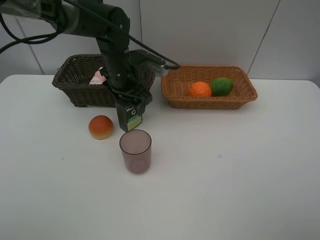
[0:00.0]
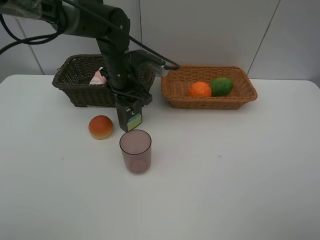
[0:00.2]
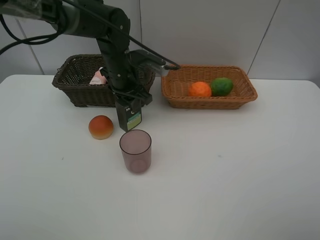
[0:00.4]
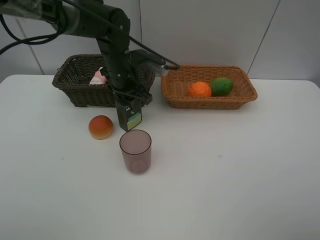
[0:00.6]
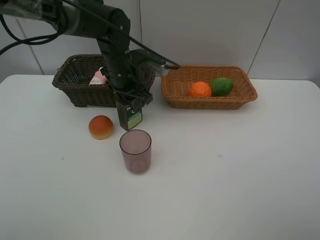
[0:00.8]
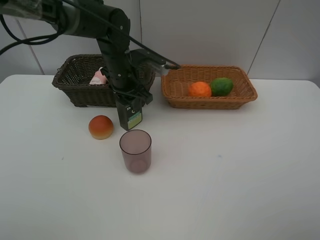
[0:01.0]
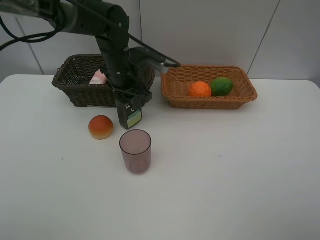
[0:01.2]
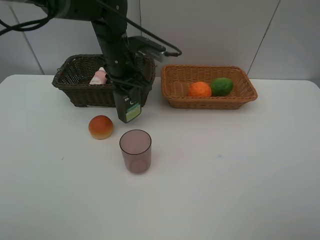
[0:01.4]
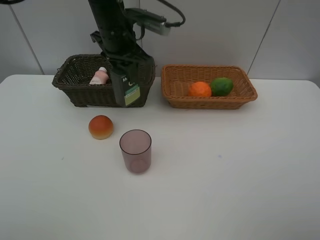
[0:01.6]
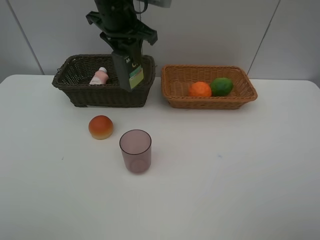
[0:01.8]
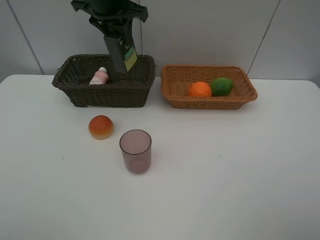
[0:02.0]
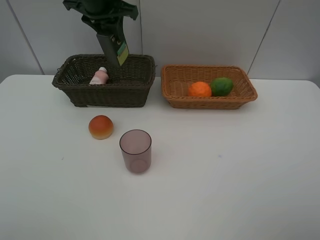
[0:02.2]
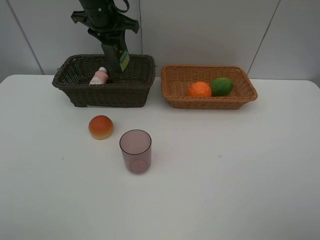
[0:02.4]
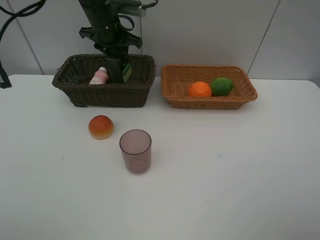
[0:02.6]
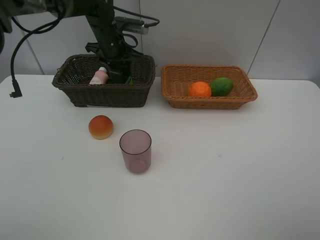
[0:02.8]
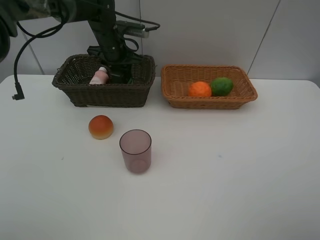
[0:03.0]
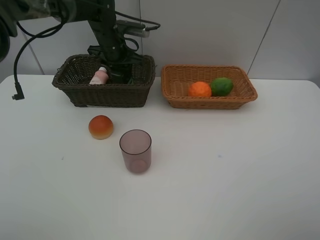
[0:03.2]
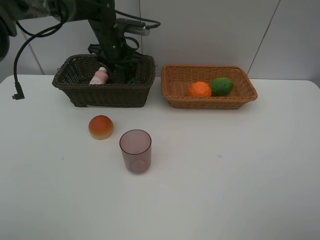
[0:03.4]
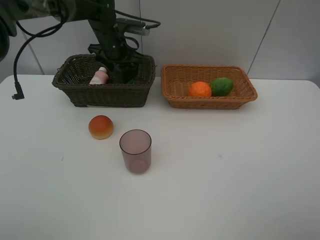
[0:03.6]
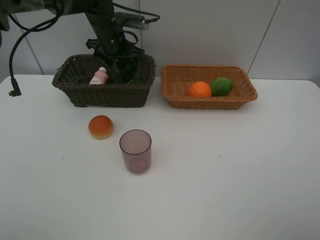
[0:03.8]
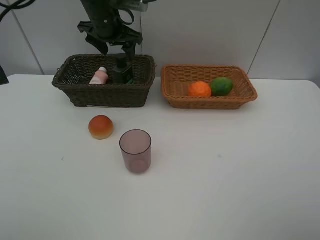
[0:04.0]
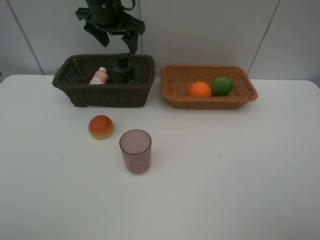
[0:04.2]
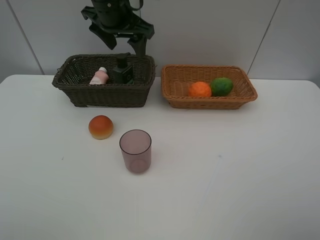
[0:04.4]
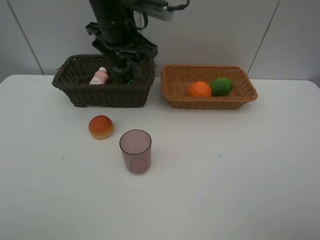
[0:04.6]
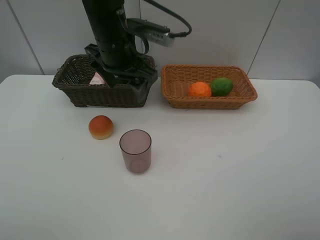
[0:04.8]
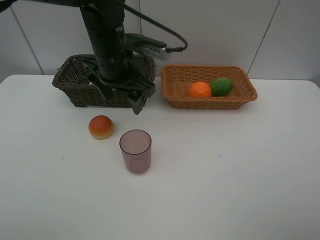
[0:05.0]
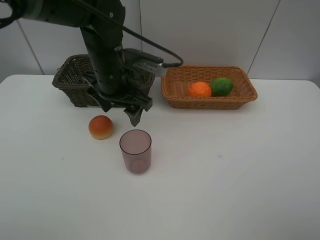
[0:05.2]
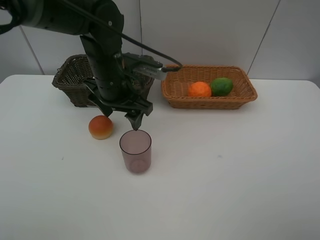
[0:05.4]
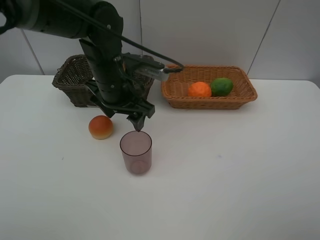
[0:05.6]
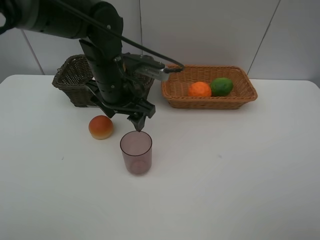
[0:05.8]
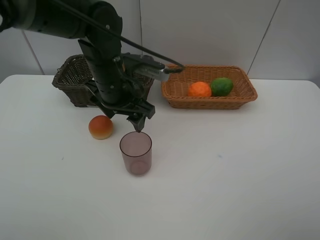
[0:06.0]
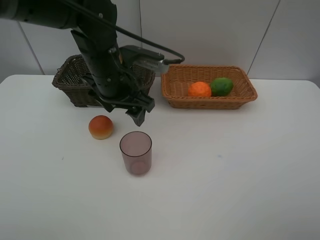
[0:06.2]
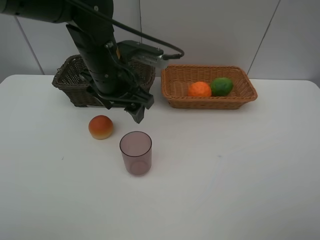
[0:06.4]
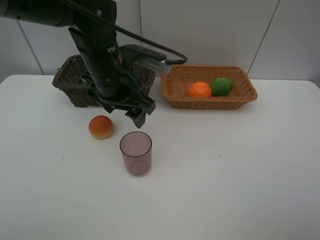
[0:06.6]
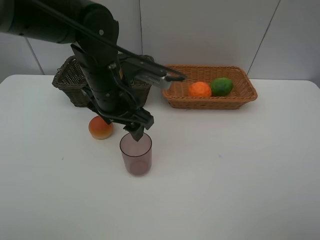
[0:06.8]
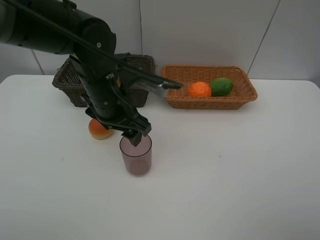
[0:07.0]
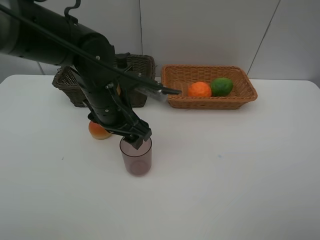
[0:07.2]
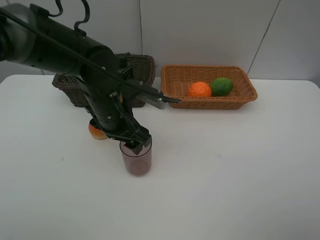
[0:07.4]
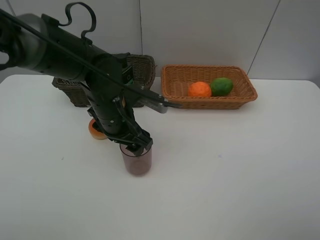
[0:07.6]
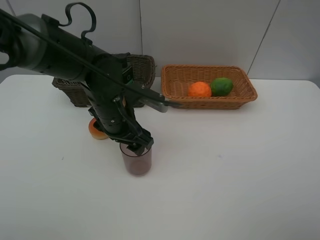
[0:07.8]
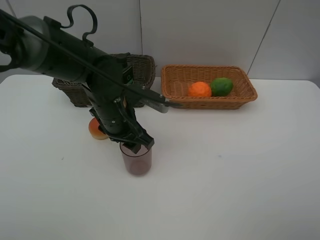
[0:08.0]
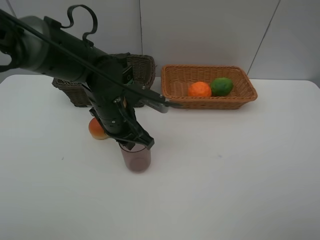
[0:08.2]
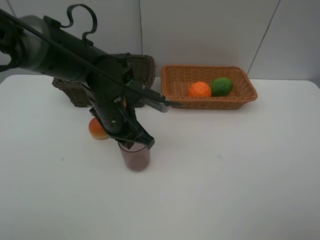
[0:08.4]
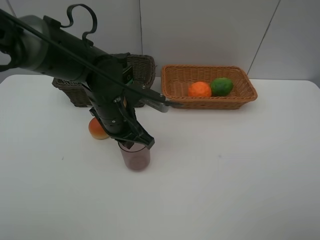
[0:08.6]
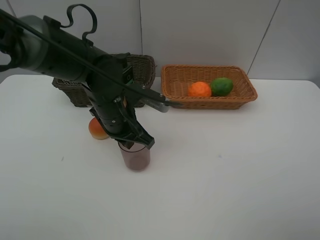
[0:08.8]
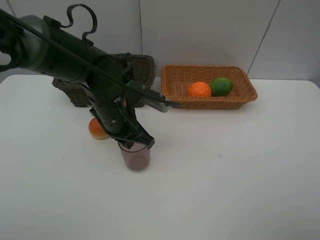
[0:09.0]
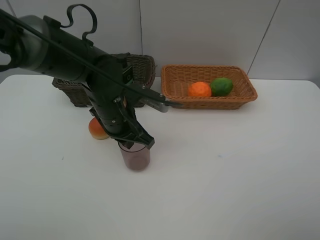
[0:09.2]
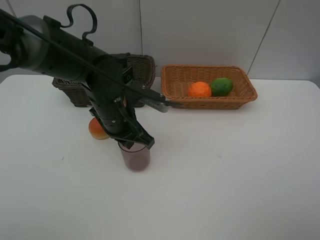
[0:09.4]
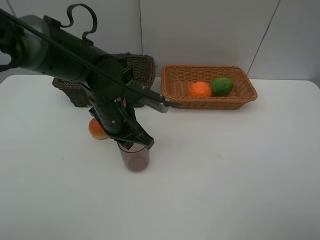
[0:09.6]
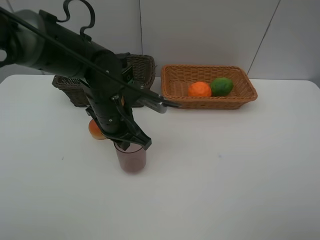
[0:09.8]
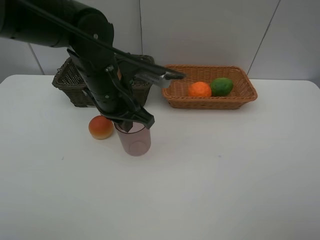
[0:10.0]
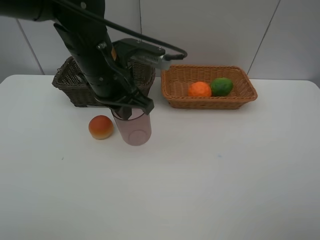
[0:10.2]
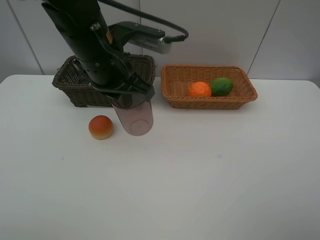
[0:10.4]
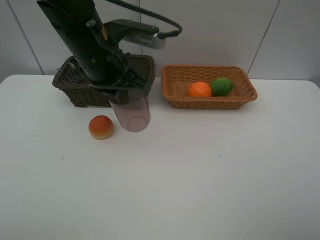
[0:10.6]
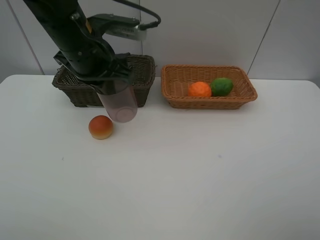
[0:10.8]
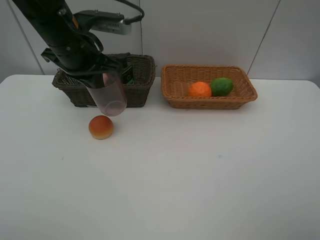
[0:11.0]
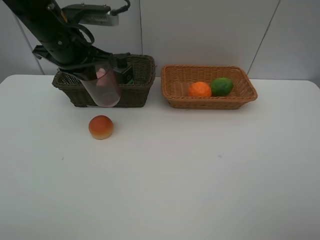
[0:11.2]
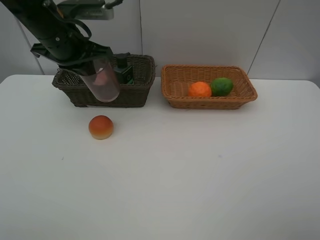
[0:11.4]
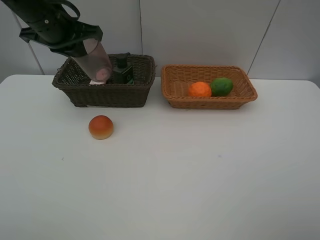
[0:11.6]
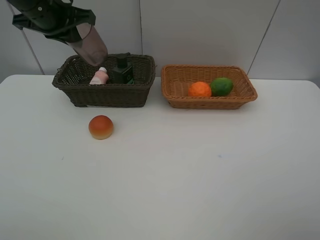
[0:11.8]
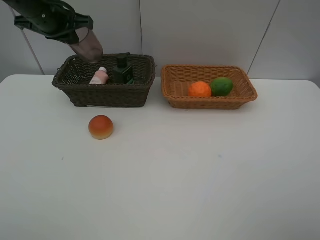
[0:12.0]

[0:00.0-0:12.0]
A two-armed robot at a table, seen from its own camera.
Task of the whole recording: place multiple objects separately in different baskets.
0:00.0 to 0:01.6: The left gripper travels upward by roughly 10 cm, and closes its fingers.
0:01.6 to 0:03.0: The left gripper heads forward and downward, covering some 10 cm.
0:03.0 to 0:04.4: The left gripper heads upward and backward, covering roughly 15 cm, and opens.
0:04.4 to 0:06.0: The left gripper shifts some 15 cm downward and backward.
0:06.0 to 0:07.6: The left gripper shifts about 5 cm downward.
0:07.6 to 0:09.0: The left gripper closes its fingers.
0:09.0 to 0:10.4: The left gripper is displaced upward by some 10 cm.
0:10.4 to 0:12.0: The left gripper travels to the left and forward by some 20 cm.

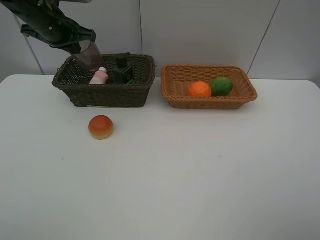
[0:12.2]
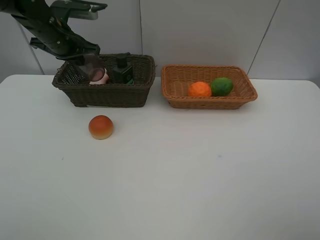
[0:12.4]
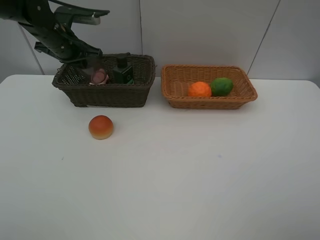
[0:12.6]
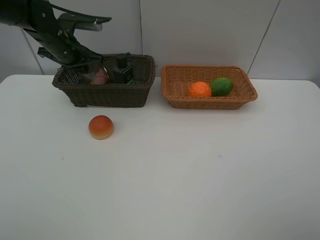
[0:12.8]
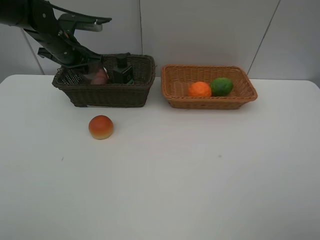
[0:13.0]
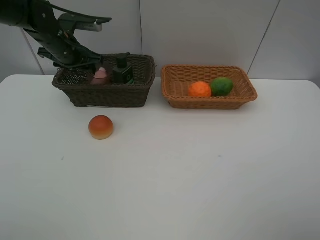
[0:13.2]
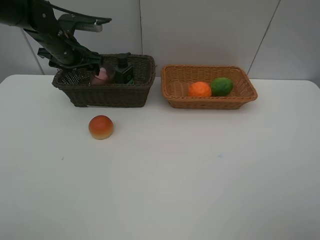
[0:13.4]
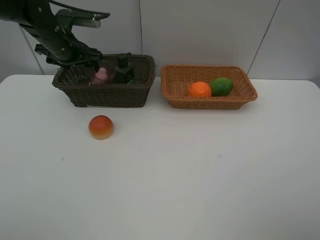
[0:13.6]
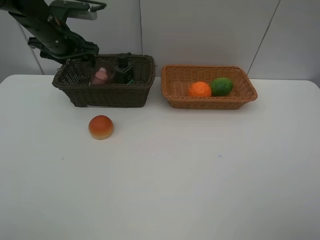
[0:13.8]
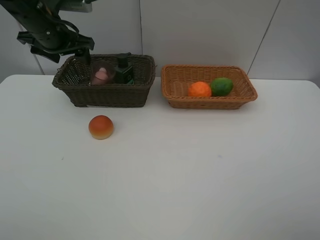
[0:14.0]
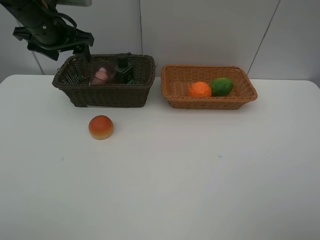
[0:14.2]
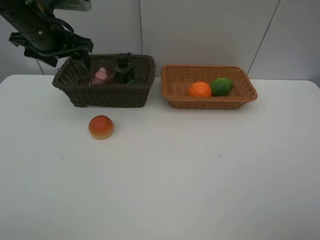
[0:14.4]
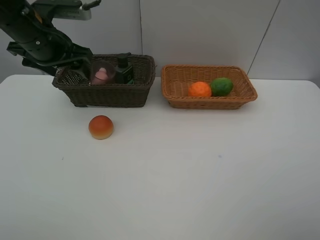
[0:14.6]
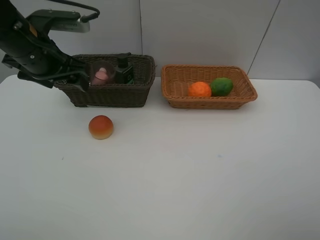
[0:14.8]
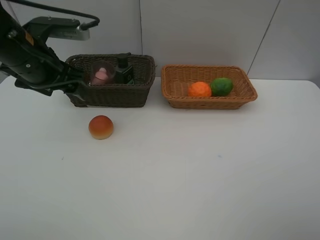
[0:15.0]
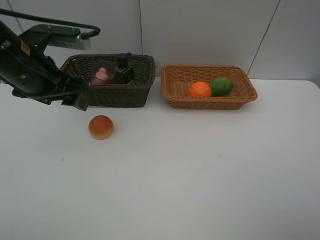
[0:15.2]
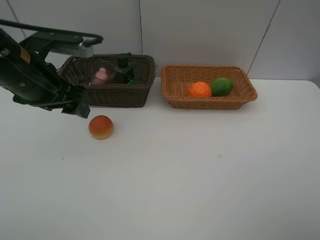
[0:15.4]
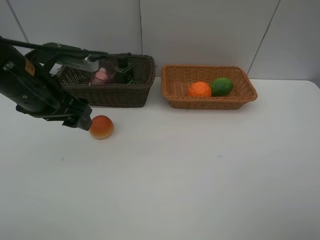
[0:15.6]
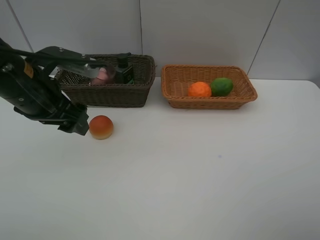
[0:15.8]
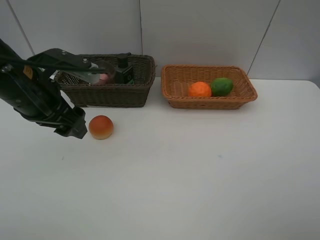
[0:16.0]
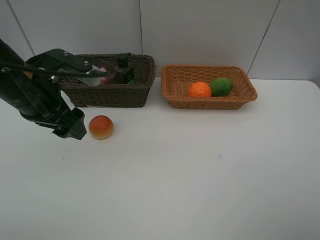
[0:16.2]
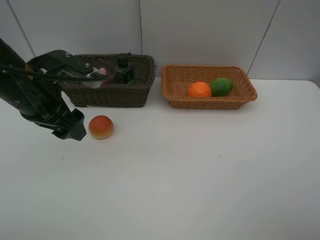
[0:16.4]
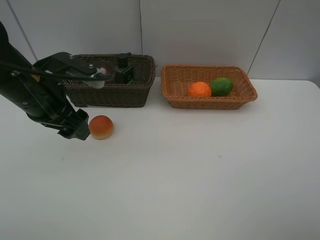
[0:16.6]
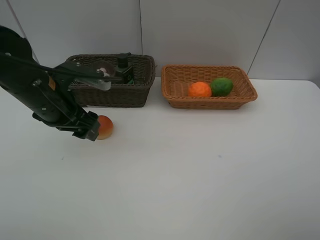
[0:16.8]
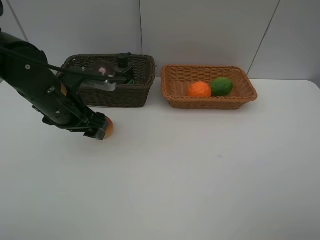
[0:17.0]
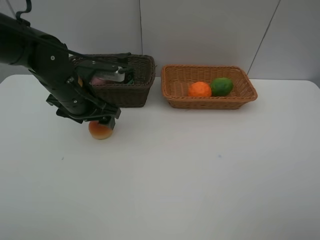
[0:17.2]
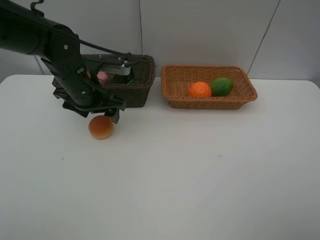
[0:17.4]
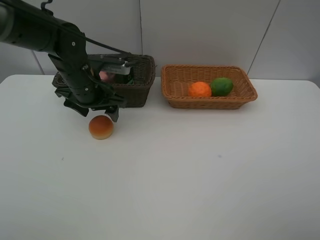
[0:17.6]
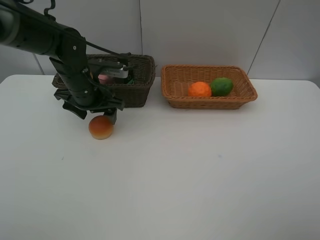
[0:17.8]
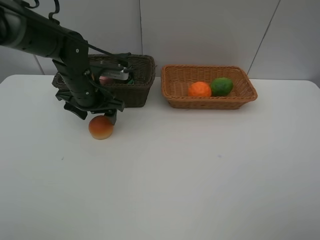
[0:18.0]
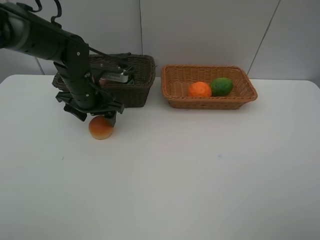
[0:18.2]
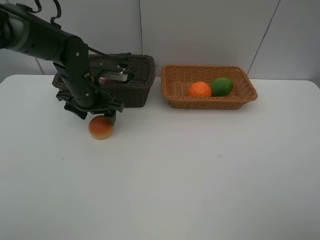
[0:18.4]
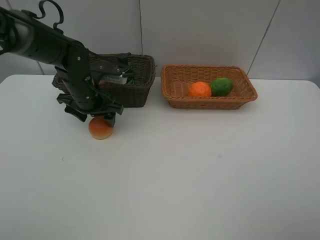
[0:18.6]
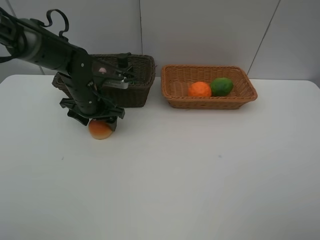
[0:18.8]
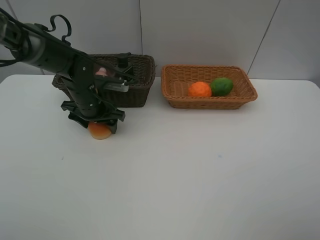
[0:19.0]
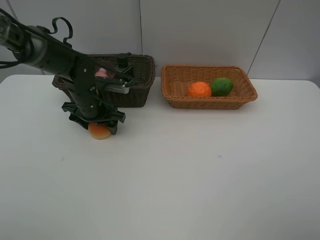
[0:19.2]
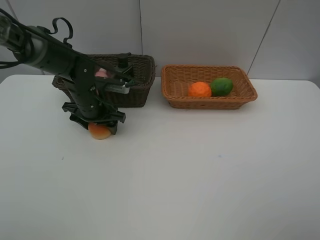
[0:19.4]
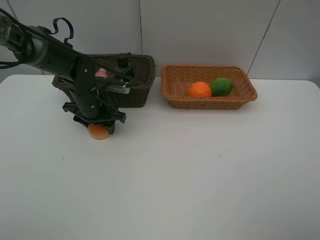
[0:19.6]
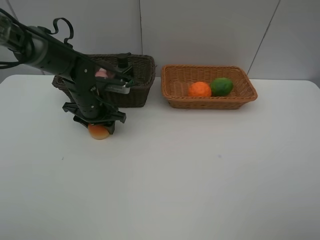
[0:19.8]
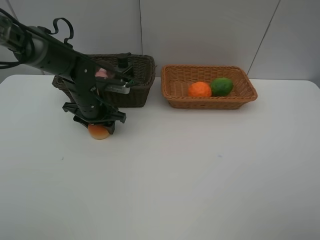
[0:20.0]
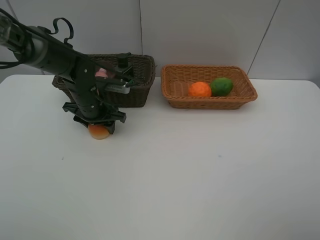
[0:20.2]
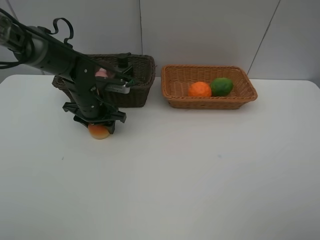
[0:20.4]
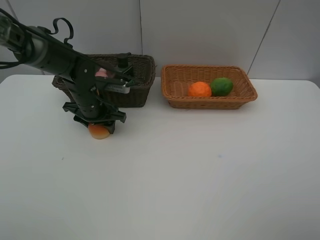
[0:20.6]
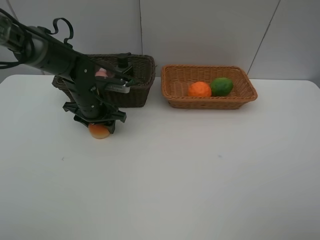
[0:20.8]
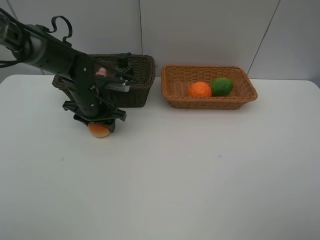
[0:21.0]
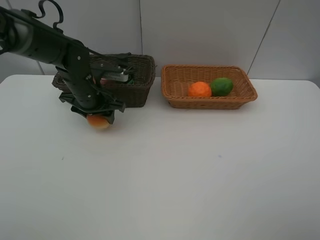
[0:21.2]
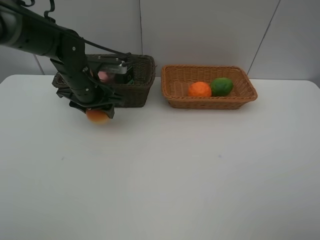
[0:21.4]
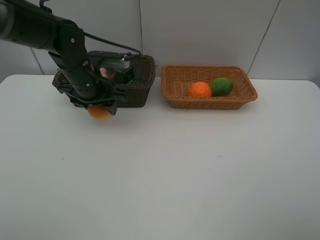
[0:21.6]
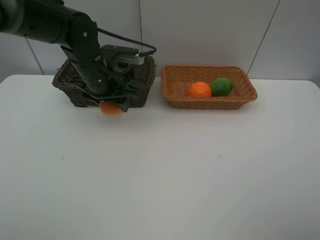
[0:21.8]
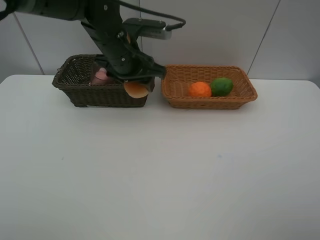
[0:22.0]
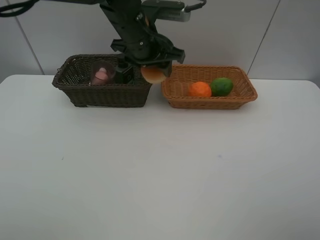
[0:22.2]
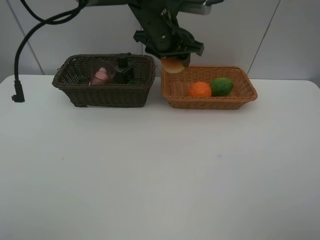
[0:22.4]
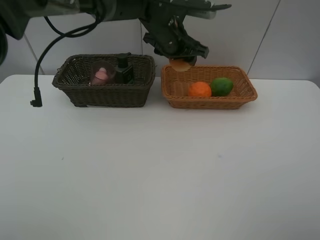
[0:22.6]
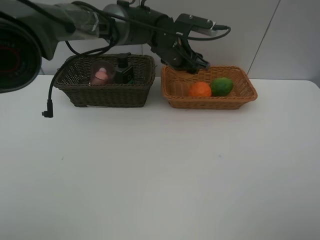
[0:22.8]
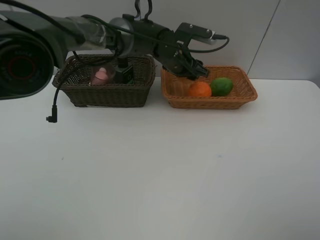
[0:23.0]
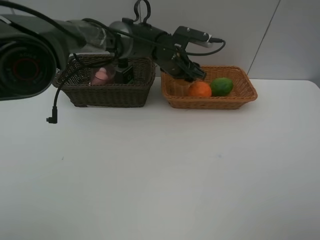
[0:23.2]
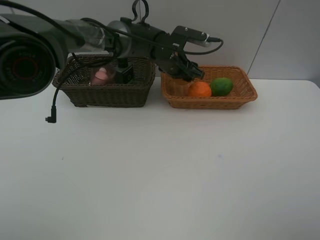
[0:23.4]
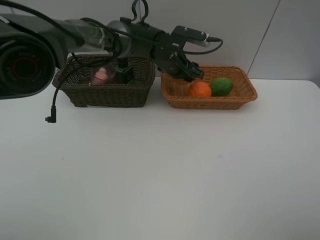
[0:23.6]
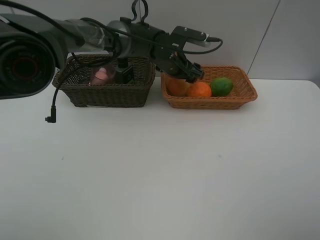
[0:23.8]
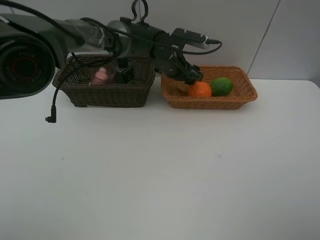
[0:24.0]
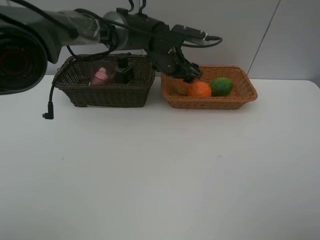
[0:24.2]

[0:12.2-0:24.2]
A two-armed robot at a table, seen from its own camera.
Task of the whole recording: place multiple objects separately in different baskets.
0:12.2 to 0:13.8: The left gripper opens.
0:13.8 to 0:15.2: The left gripper shifts approximately 15 cm backward.
0:16.6 to 0:18.2: The left gripper is displaced forward and downward by roughly 15 cm.
0:18.2 to 0:21.2: The grippers make only small movements.
0:21.2 to 0:22.6: The left gripper moves to the right and upward, some 20 cm.
0:22.6 to 0:24.2: The left gripper is displaced downward by about 5 cm.
